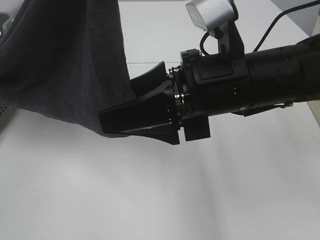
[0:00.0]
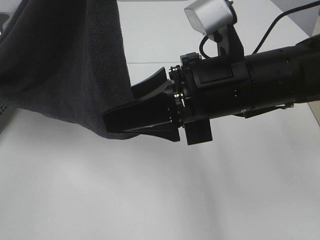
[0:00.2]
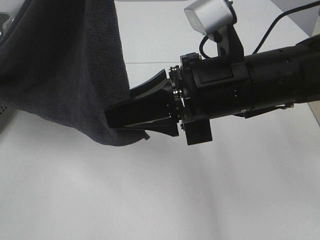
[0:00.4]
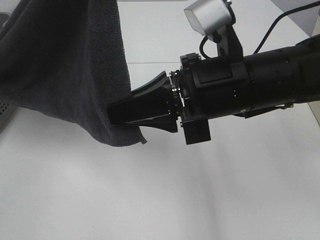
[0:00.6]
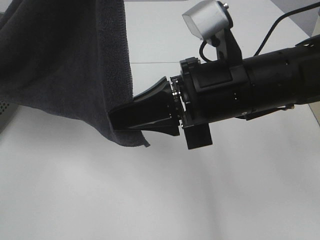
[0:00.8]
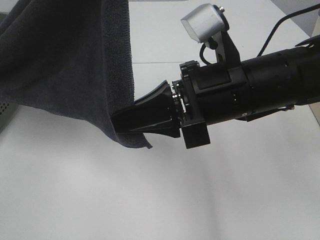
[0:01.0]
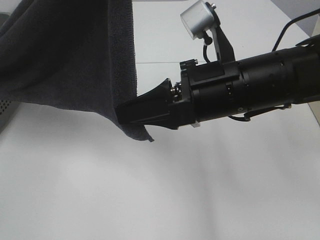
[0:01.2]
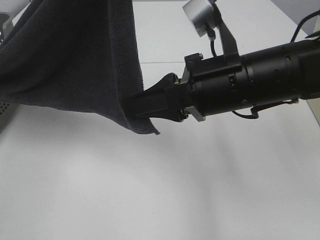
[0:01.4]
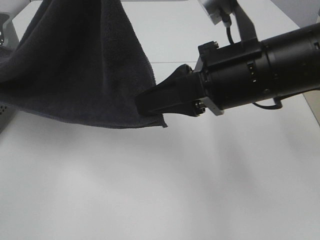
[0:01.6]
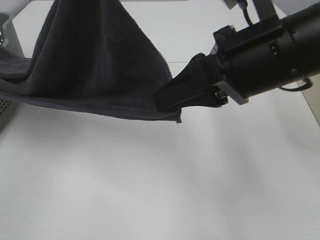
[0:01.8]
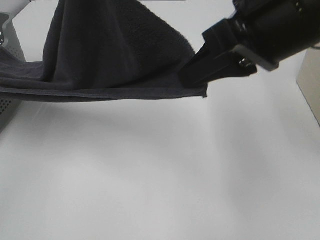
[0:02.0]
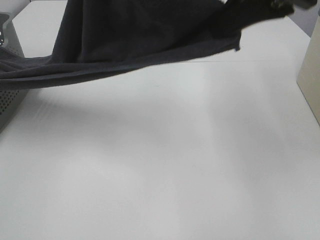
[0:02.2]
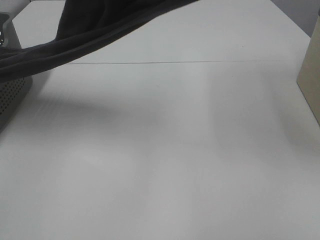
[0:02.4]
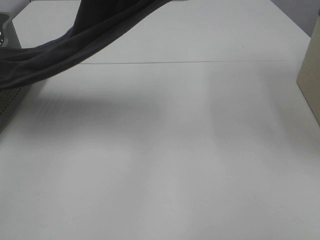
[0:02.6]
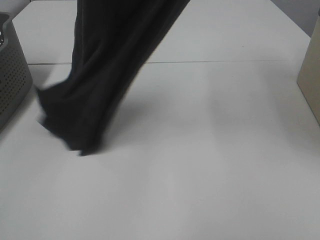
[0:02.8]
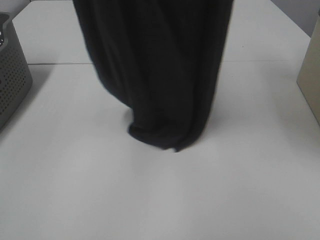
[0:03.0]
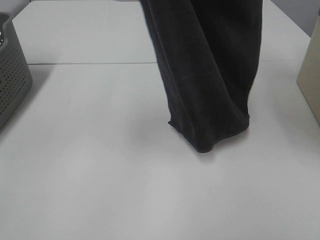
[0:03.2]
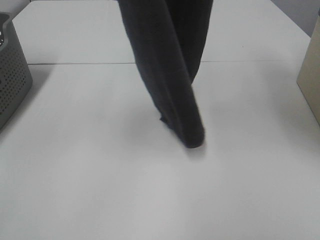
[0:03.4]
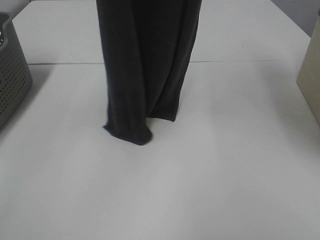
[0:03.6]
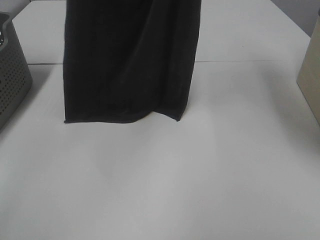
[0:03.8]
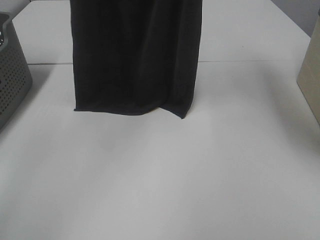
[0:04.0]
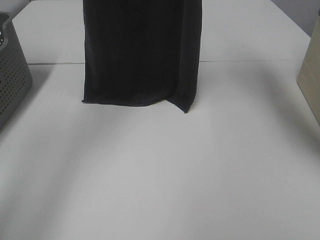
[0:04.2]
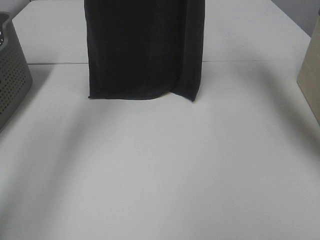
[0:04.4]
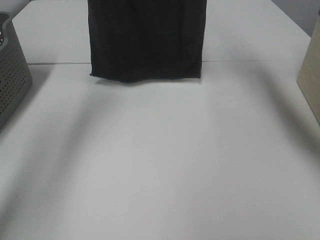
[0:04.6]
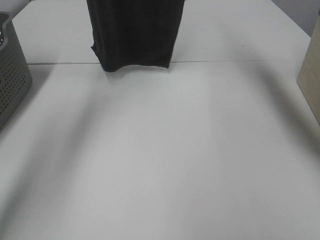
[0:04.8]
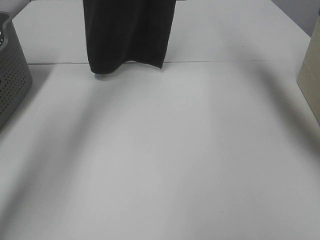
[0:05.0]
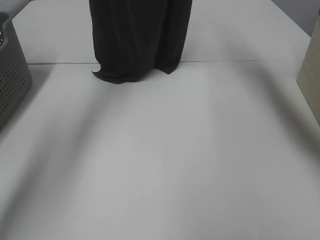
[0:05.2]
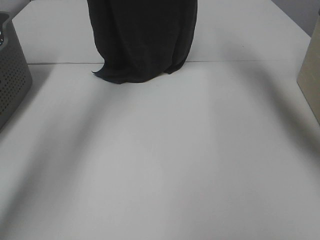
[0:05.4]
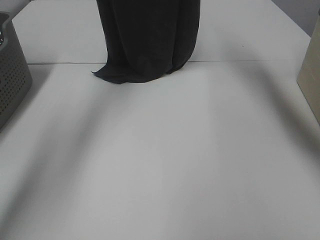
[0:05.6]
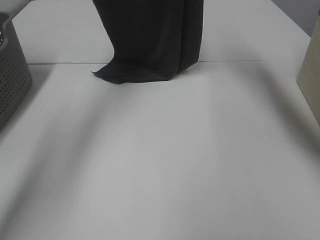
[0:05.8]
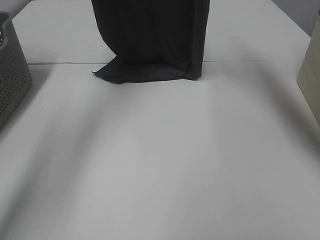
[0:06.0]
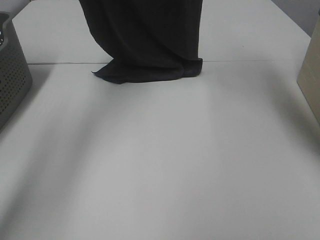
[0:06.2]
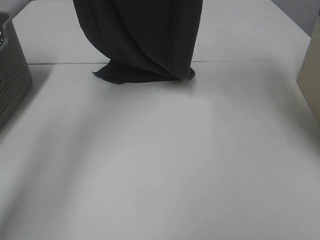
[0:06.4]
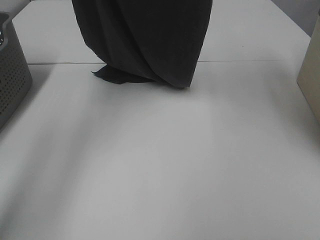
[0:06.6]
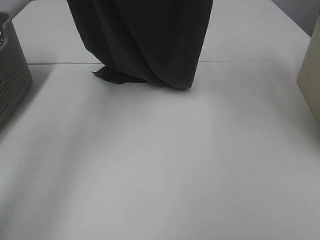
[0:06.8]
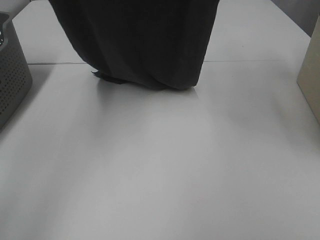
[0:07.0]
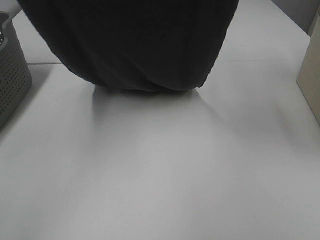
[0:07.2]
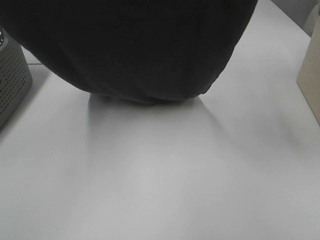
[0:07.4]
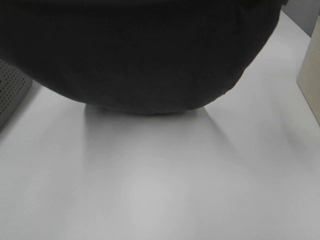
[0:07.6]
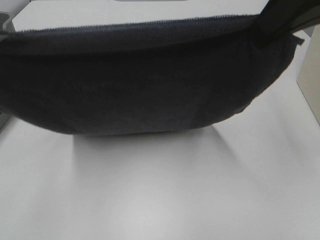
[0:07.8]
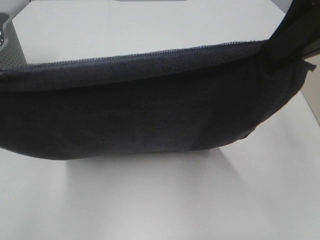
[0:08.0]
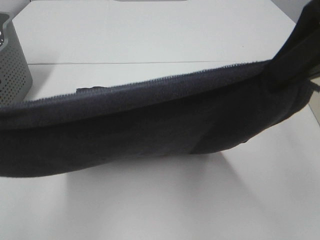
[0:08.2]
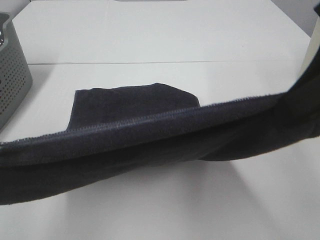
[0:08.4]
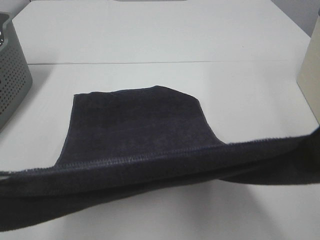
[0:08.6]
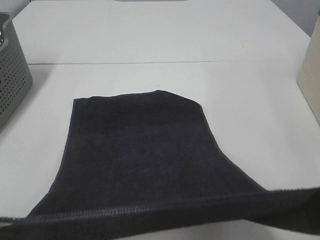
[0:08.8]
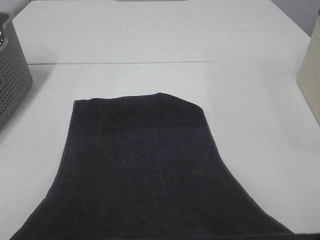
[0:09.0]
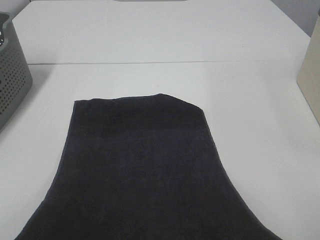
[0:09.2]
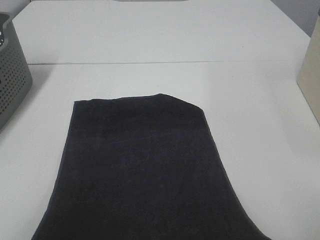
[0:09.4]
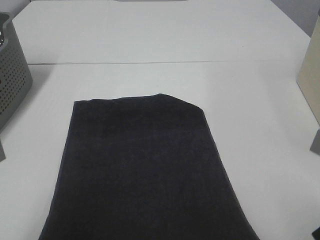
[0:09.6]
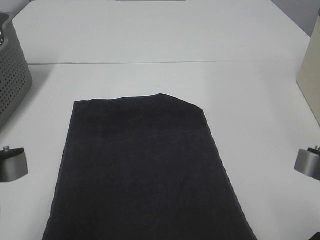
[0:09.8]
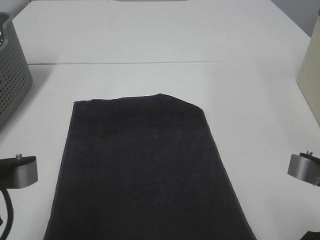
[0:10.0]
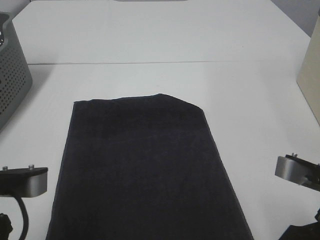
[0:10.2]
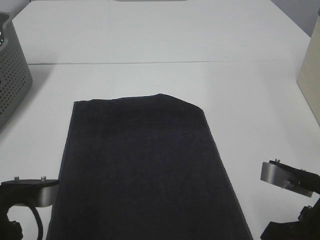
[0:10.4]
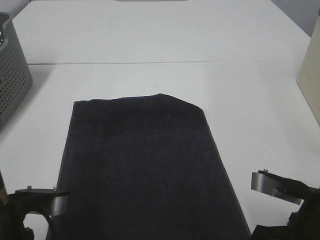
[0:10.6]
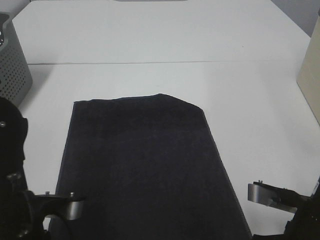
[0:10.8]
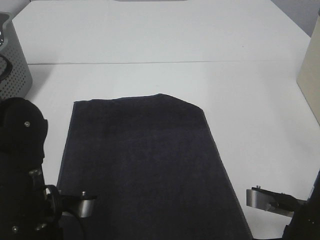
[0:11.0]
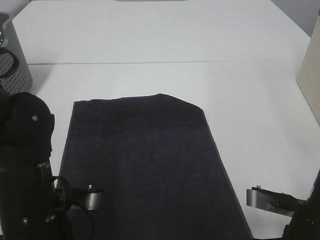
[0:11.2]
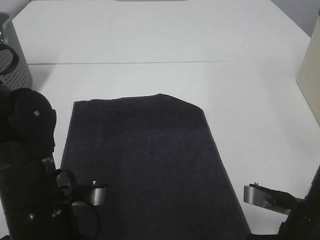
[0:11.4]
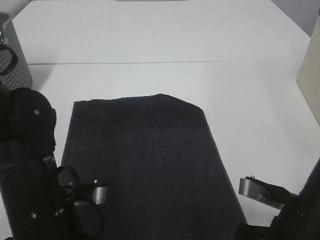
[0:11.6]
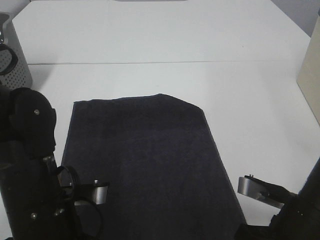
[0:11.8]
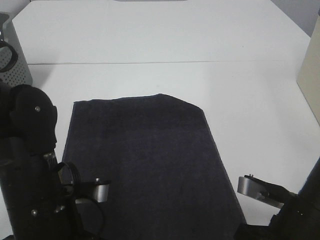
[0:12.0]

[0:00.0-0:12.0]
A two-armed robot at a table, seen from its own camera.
Task of the whole recording: Remove the towel and place it.
Step, 0.0 to 2.6 s: Right hand: grab a corner of the grey towel and straighten it.
Step, 2.8 to 7.0 s: Left hand: spread the grey towel flat on the table.
Step, 2.8 to 7.0 s: Right hand: spread the grey towel flat on the table.
0.0 to 1.6 s: The right gripper closes up.
1.6 to 3.0 s: The left gripper moves about 5 cm. Meanwhile the right gripper moves upward, approximately 30 cm.
3.0 to 4.4 s: The grippers both shift forward by roughly 15 cm.
4.4 to 6.0 s: The right gripper shifts approximately 5 cm downward, while the left gripper shifts by about 5 cm.
6.0 to 7.6 s: Both grippers travel together backward, some 25 cm.
7.6 to 9.0 s: Both grippers move backward and downward, about 20 cm.
9.0 to 10.4 s: The two grippers go roughly 10 cm downward.
10.4 to 12.0 s: The left gripper shifts by roughly 5 cm, and opens, while the right gripper is displaced downward by about 5 cm, and opens its fingers.

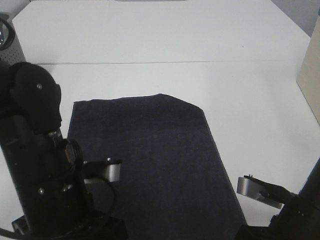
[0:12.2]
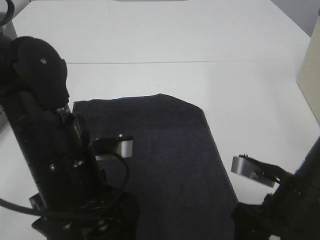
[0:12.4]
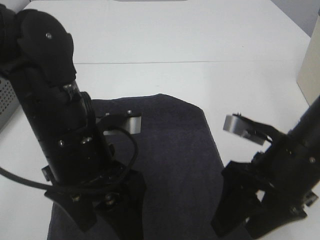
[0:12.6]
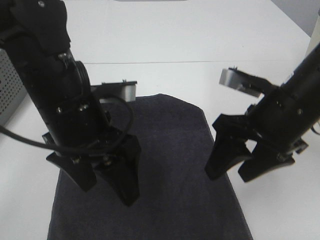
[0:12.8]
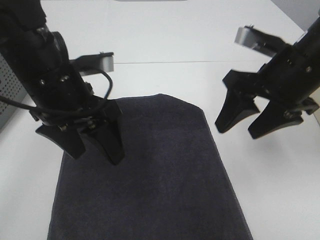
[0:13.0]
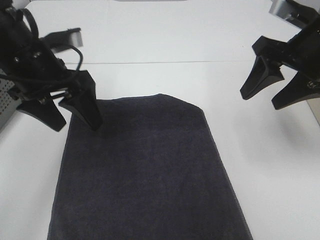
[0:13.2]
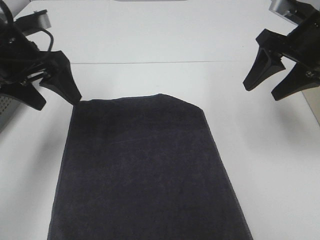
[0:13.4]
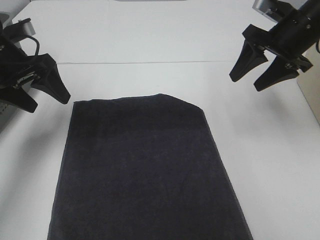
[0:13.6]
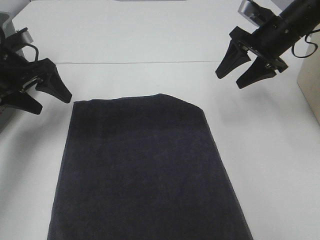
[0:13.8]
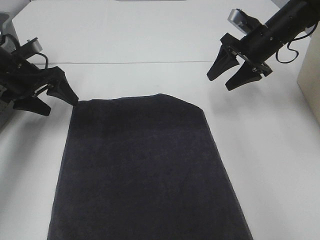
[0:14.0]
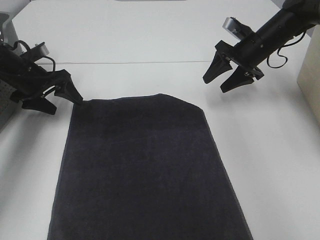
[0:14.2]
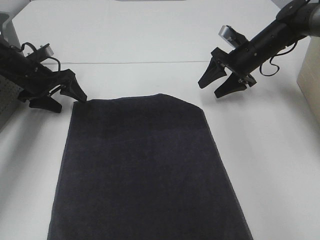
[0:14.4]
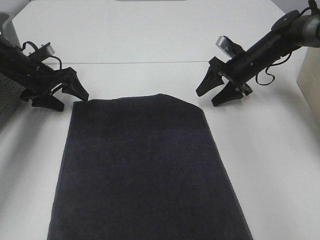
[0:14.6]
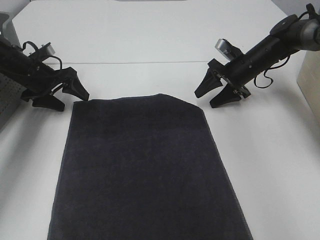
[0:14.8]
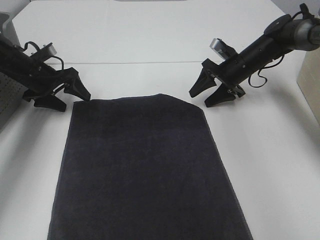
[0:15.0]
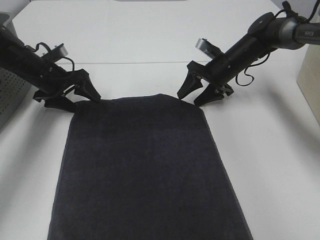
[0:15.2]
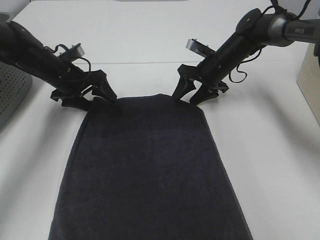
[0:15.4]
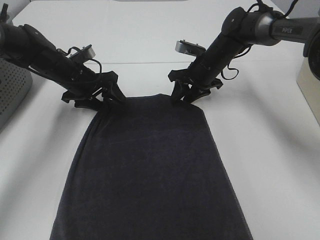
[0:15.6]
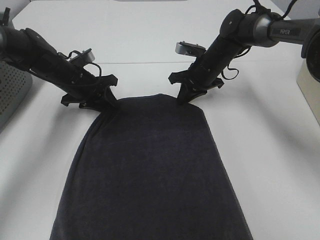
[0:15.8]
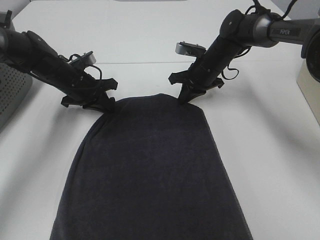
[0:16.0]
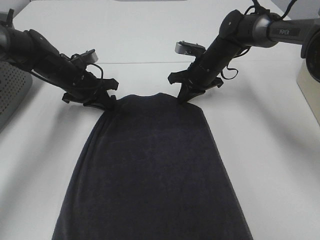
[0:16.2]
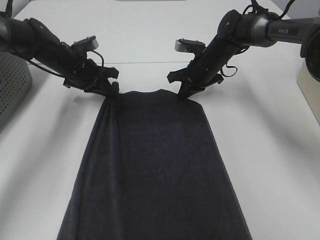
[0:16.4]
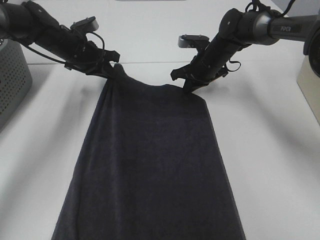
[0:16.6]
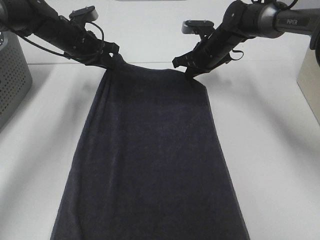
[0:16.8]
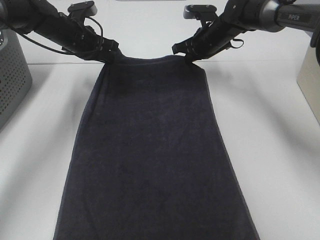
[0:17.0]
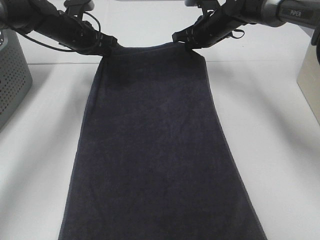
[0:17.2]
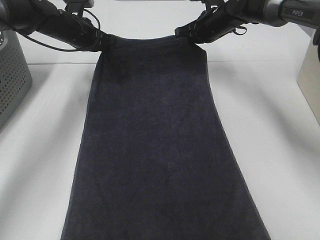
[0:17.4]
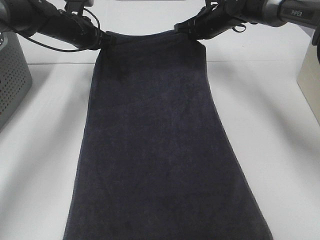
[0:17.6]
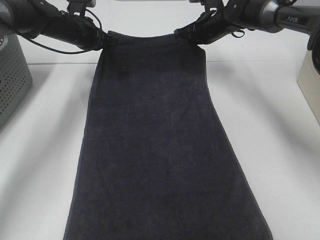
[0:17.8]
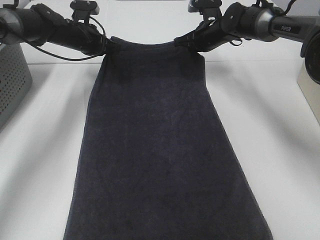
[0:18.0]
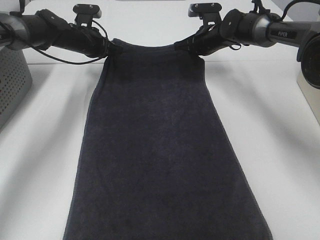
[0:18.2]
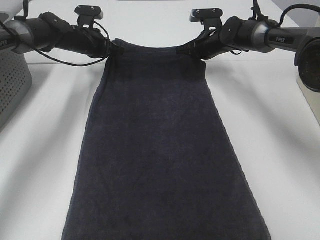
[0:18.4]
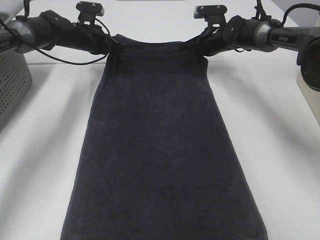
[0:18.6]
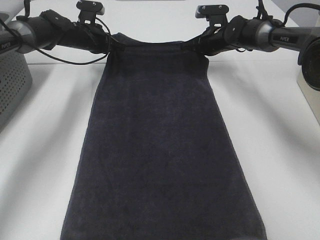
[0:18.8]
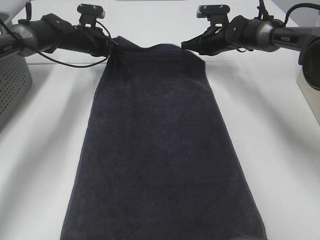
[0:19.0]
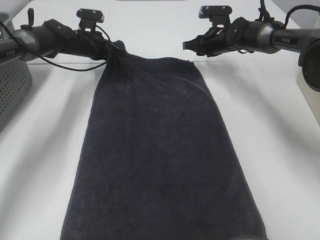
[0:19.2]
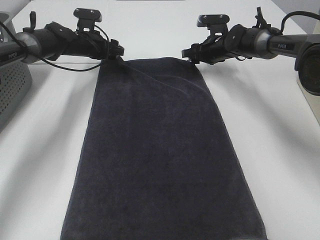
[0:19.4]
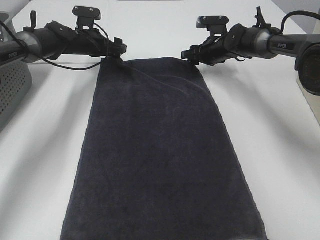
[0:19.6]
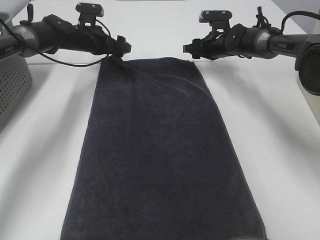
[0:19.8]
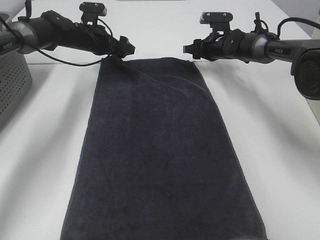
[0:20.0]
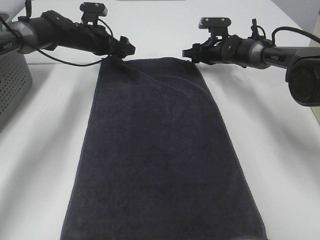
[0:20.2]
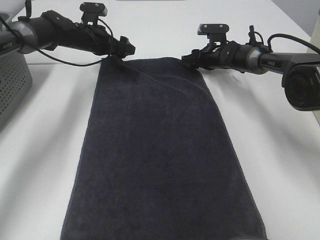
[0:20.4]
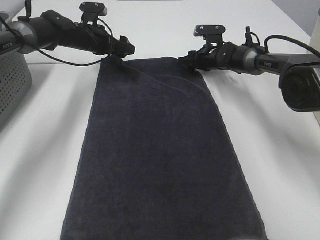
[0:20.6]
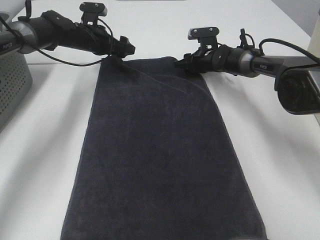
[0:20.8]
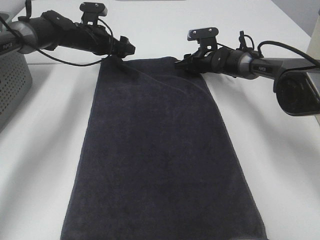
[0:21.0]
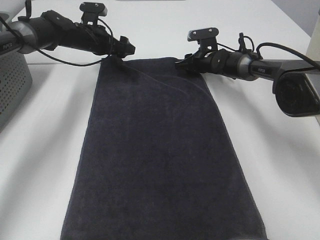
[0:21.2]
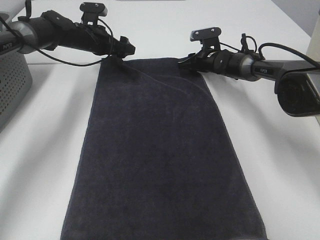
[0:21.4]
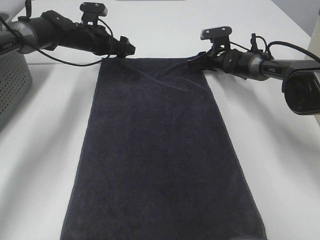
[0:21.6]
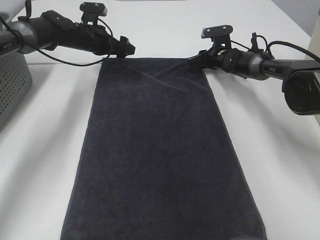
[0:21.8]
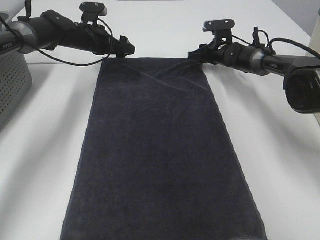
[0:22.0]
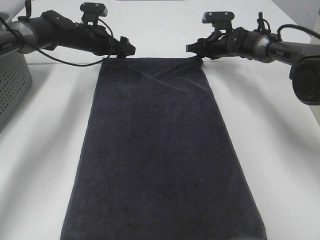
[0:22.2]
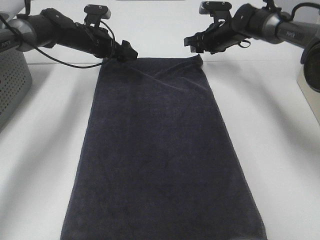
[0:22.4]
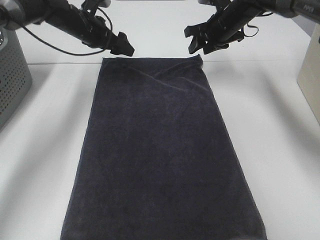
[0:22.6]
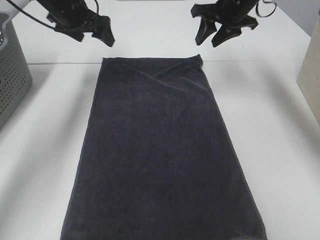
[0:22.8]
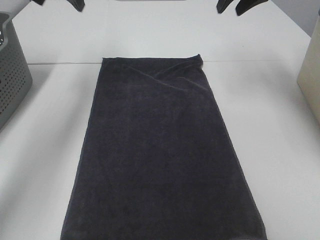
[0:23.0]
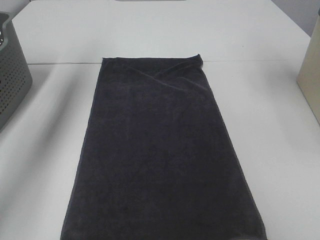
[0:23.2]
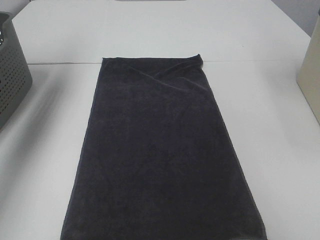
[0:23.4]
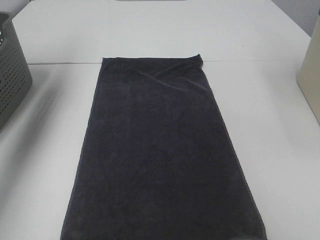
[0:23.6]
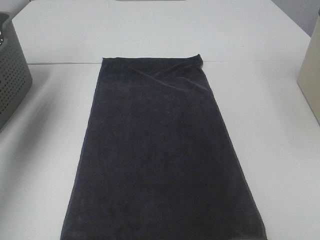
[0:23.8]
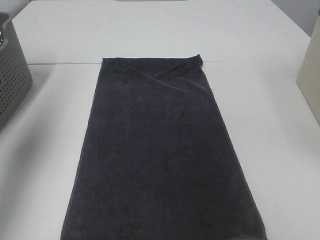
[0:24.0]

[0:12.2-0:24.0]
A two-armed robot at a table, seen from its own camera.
Task of the whole recording: Remove the towel and place it.
Step, 12.2 to 15.6 s: Right hand:adjust the gray towel.
12.2 to 13.6 s: The left gripper travels forward and to the left by about 25 cm. Meanwhile the right gripper is displaced forward and upward by about 30 cm.
13.6 to 15.2 s: The left gripper moves downward and forward, about 15 cm. The right gripper goes approximately 20 cm downward, forward and to the left.
15.2 to 16.6 s: The left gripper travels to the right by roughly 5 cm, and closes up. The right gripper closes its fingers.
16.6 to 18.2 s: Both grippers travel together forward, approximately 5 cm.
18.2 to 19.6 s: The left gripper opens its fingers. Meanwhile the right gripper opens up.
19.6 to 21.0 s: The grippers move only a little.
21.0 to 22.6 s: The left gripper goes roughly 5 cm upward; the right gripper heads upward, covering approximately 15 cm.
22.6 to 24.0 s: The right gripper travels backward and upward by approximately 35 cm. The left gripper moves backward, upward and to the left, some 40 cm.
